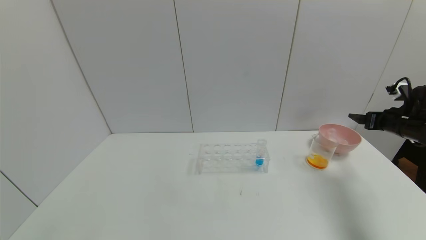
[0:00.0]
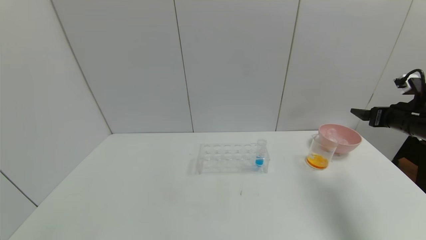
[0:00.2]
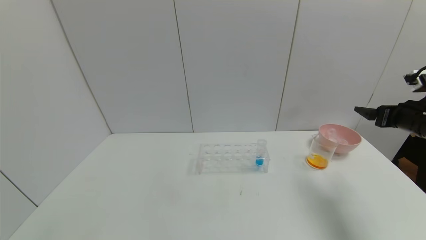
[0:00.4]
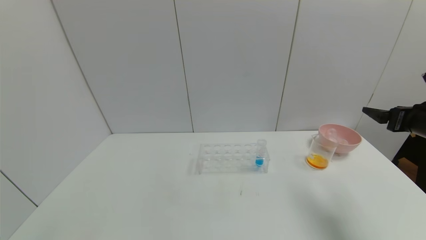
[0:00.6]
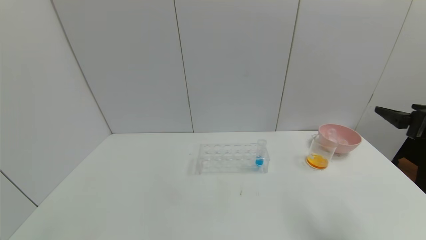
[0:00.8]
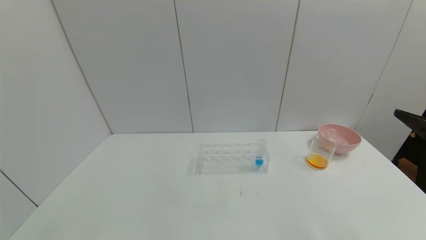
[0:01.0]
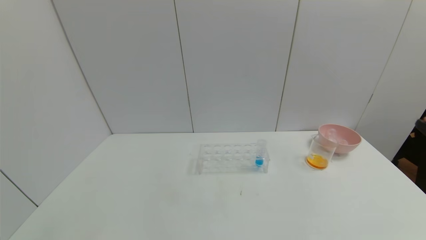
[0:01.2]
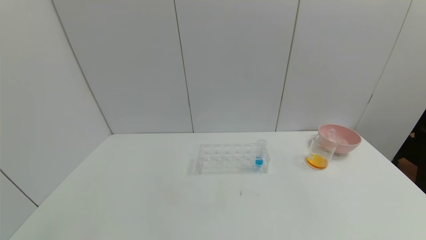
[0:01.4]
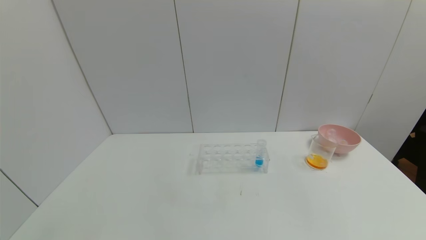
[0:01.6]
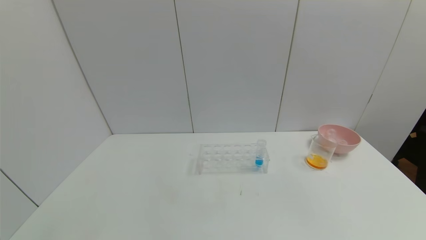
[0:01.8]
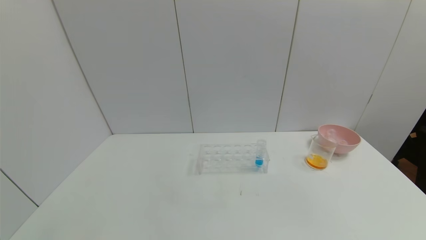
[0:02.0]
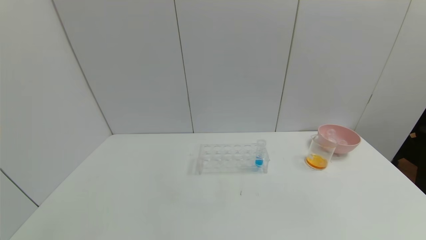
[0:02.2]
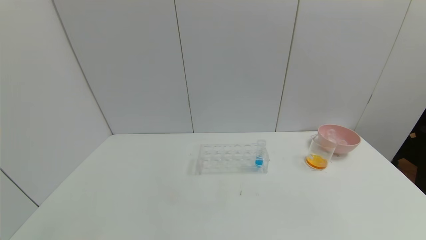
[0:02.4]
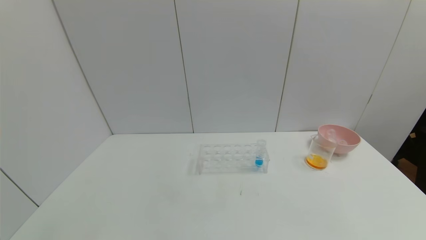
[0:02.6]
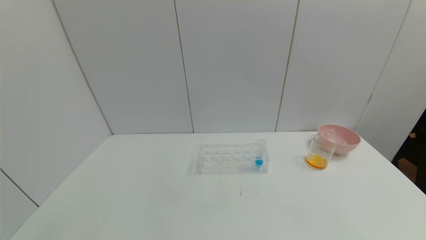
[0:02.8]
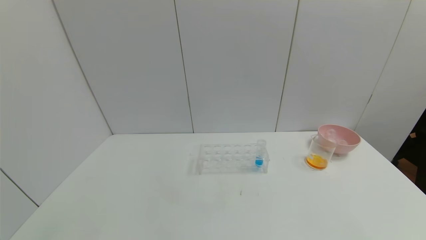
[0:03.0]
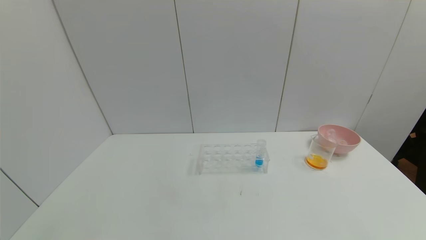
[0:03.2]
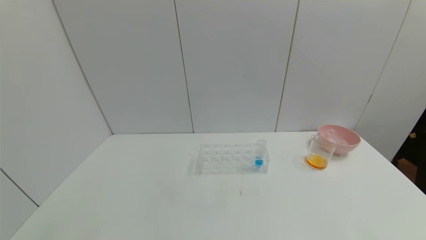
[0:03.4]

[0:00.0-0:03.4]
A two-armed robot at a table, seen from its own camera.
Task of the whole recording: pick up the test tube with yellow pigment and the test tube with red pigment by grippers and pour them into the beaker.
0:00.0 to 0:01.6: The right gripper goes some 35 cm backward.

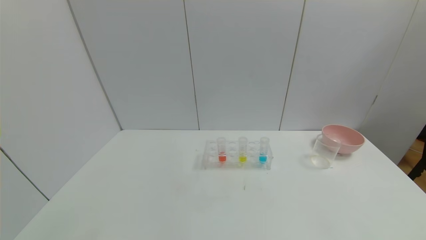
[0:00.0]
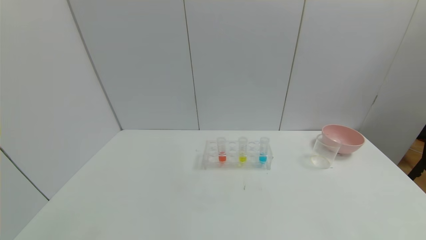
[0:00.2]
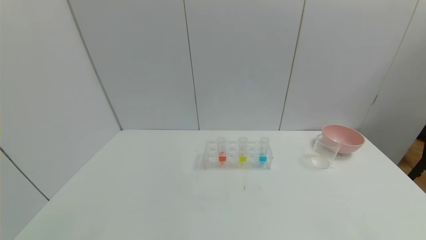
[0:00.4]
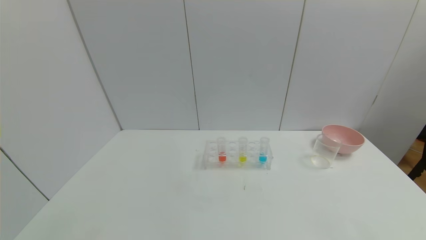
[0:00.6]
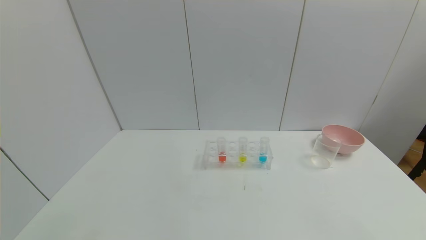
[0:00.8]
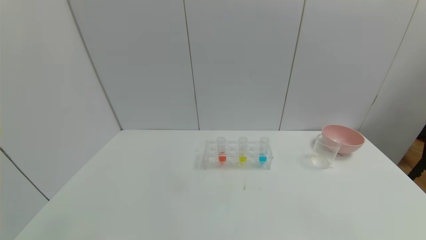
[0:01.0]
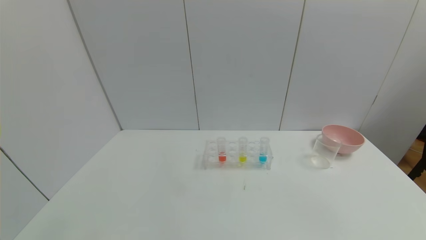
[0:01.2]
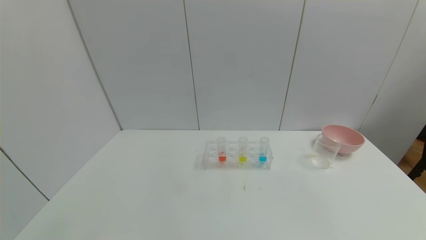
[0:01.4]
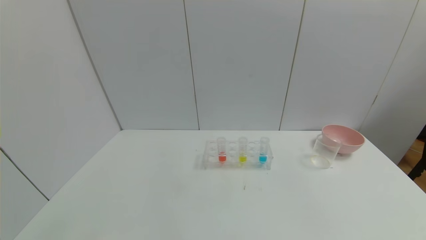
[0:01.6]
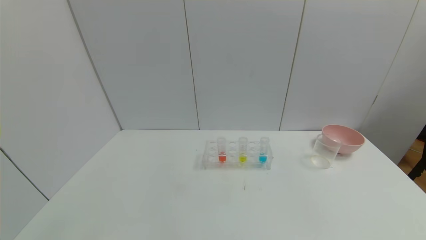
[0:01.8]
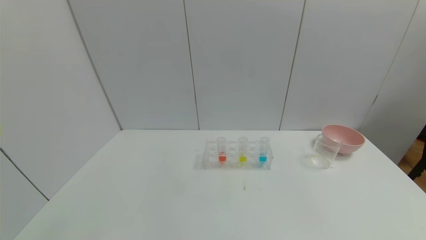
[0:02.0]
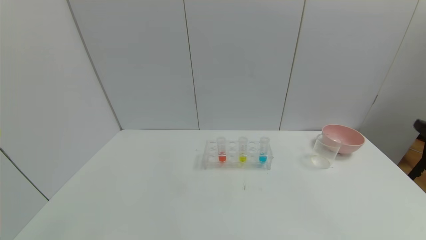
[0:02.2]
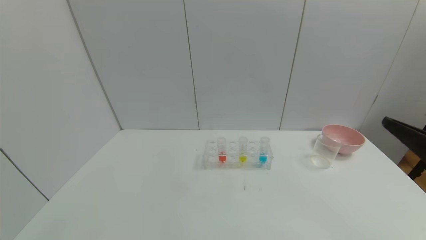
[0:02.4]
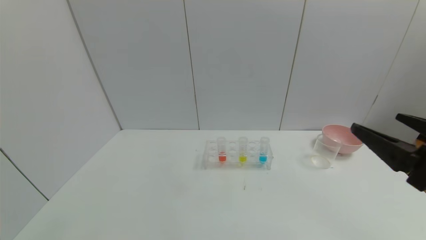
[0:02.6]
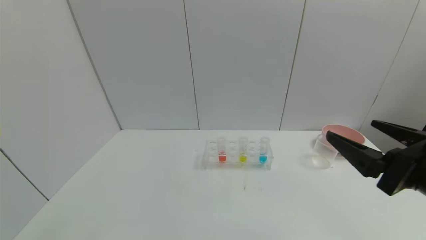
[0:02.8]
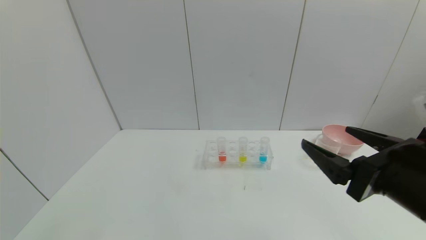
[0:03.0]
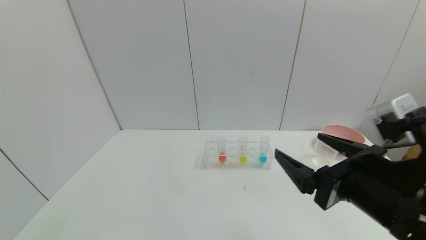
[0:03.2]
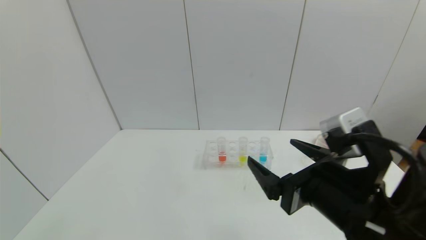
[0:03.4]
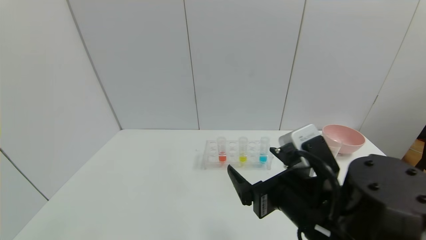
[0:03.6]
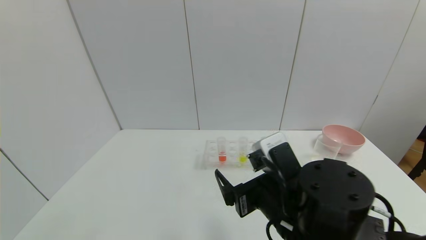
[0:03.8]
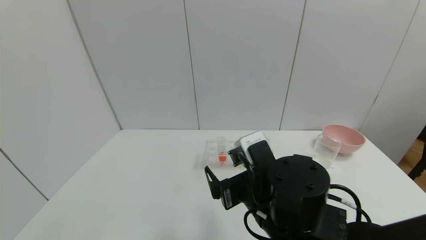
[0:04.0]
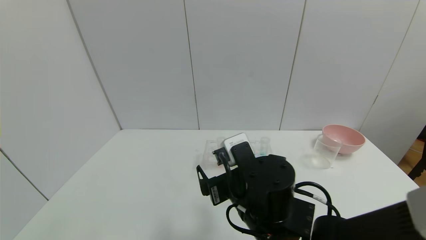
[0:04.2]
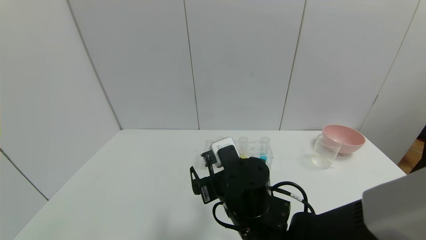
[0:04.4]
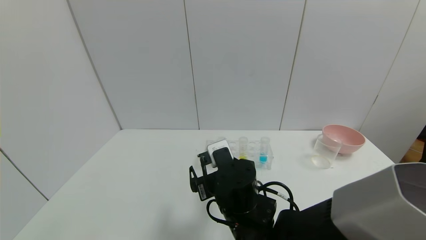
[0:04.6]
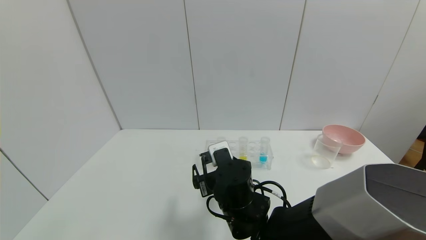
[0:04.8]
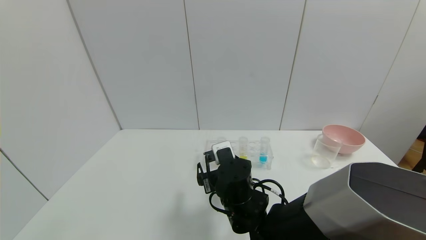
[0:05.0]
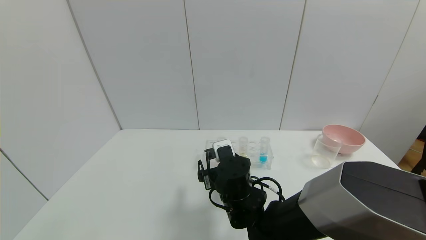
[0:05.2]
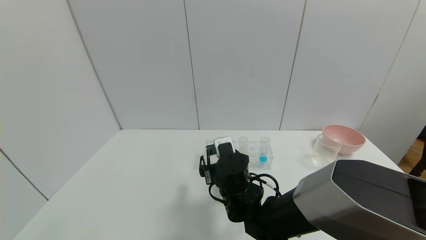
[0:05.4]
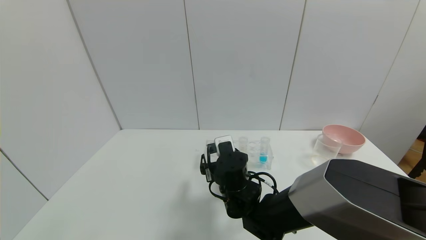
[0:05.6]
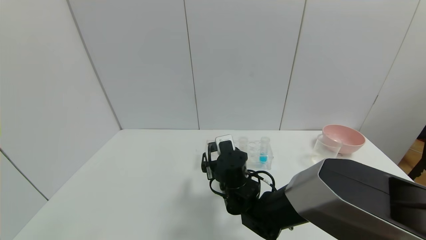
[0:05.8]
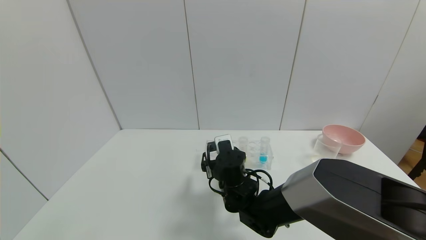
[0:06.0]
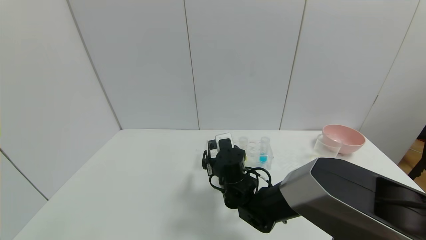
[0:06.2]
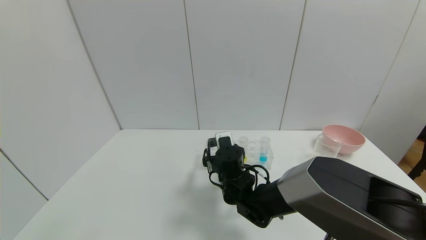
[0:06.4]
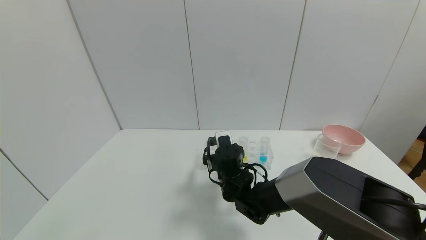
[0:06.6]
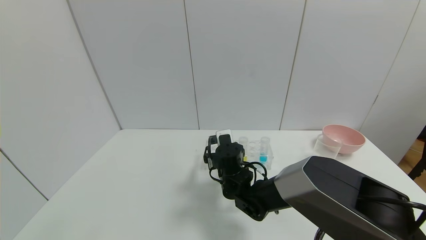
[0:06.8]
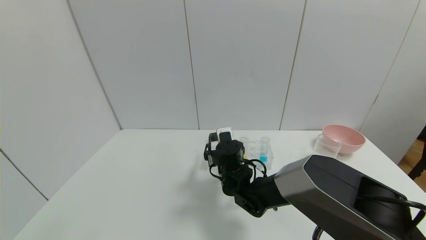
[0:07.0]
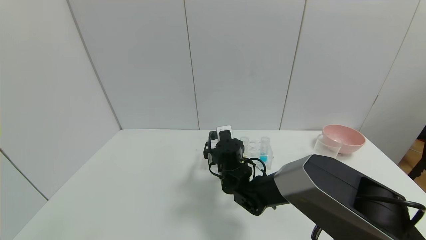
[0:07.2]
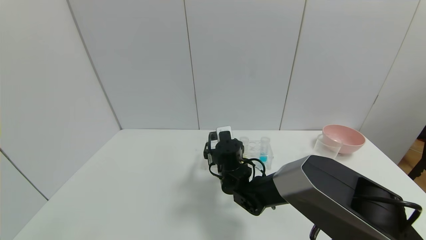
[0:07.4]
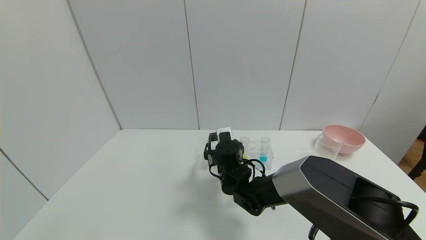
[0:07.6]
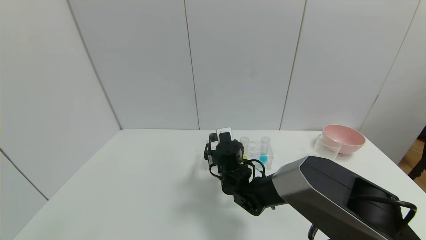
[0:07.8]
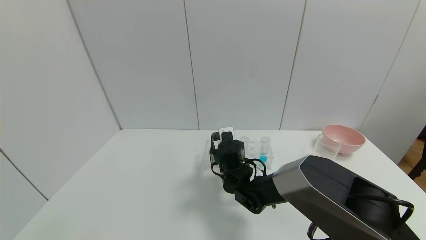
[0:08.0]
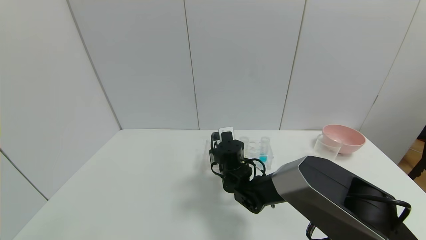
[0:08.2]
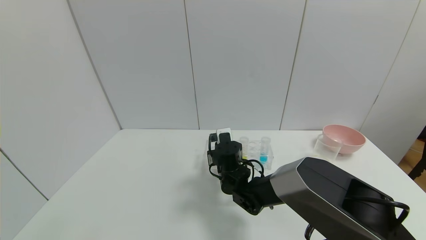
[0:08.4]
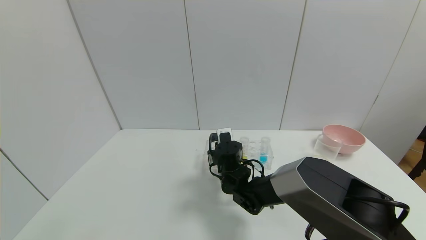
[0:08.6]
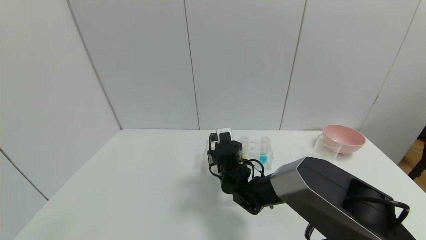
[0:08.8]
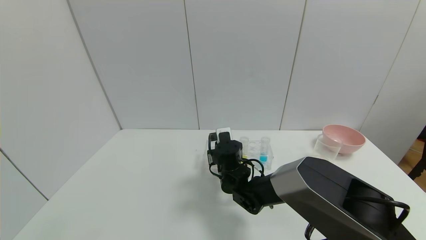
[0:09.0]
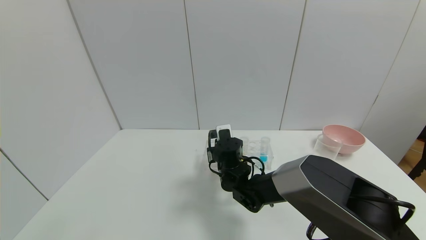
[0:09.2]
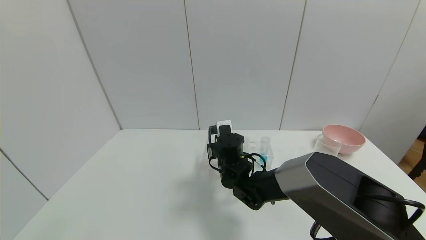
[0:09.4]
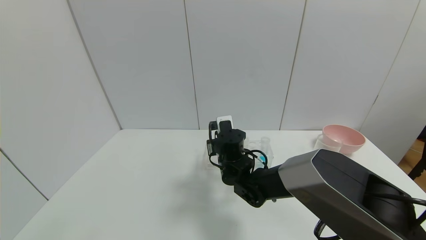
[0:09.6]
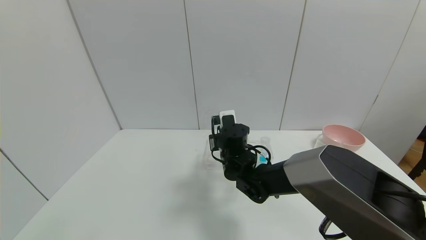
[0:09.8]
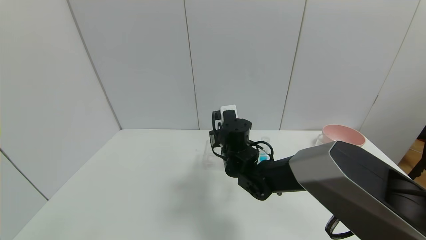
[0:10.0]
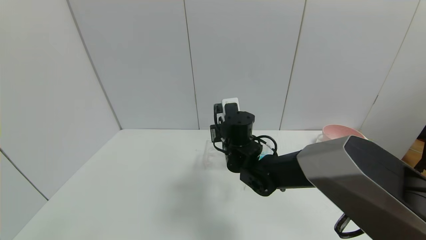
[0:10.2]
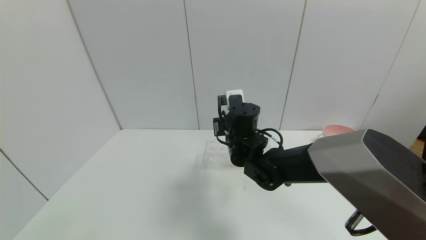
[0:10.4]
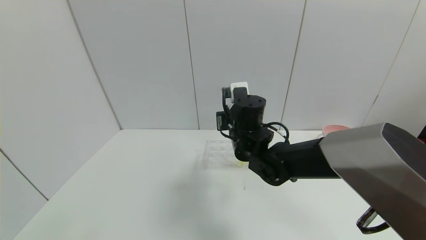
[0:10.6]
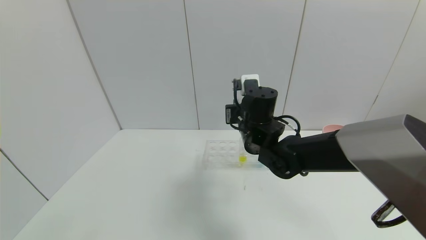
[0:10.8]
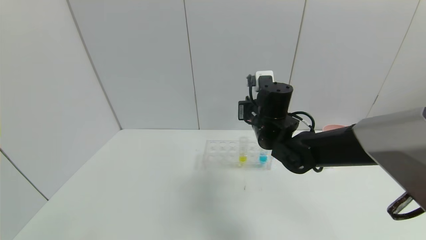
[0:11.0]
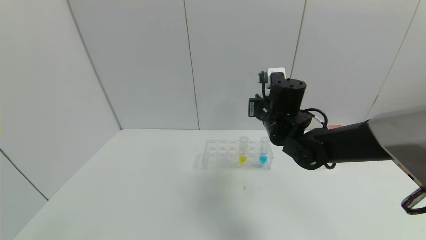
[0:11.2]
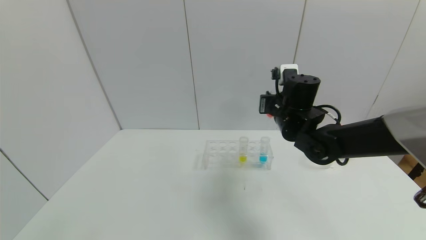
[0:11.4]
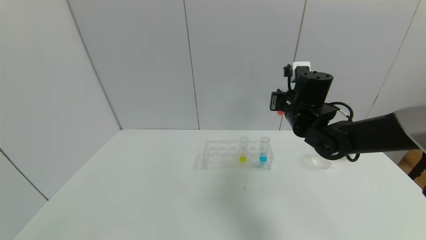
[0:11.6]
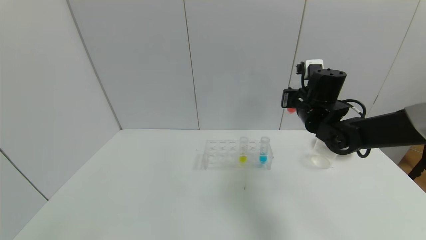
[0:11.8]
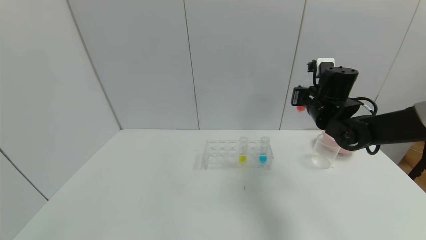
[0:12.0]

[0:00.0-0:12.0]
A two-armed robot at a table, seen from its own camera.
Task of the whole recording: pick up the test tube with yellow pigment and the test tube with red pigment by grippers and pour them into the beaker.
Step, 0:00.0 to 0:08.8: Grasp the red reagent with the right gripper.
0:01.6 to 0:03.0: The right gripper shifts approximately 20 cm to the left and forward.
0:03.0 to 0:04.4: The right gripper shifts some 25 cm to the left, downward and forward.
0:04.4 to 0:06.0: The right gripper heads forward and downward, covering roughly 10 cm.
0:06.0 to 0:07.6: The right gripper moves forward, some 5 cm.
0:07.6 to 0:09.0: The right gripper closes.
0:09.0 to 0:10.4: The right gripper moves upward, approximately 10 cm.
0:10.4 to 0:12.0: The right gripper goes about 20 cm to the right.

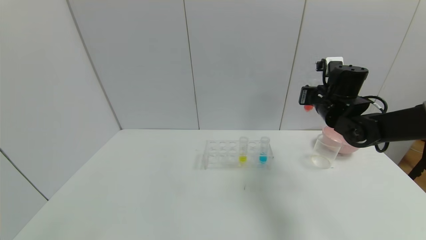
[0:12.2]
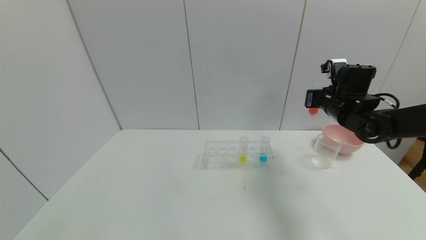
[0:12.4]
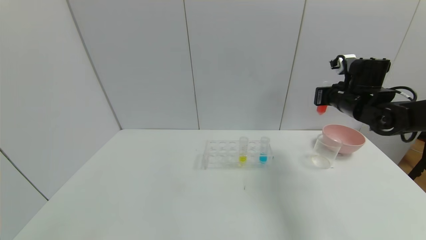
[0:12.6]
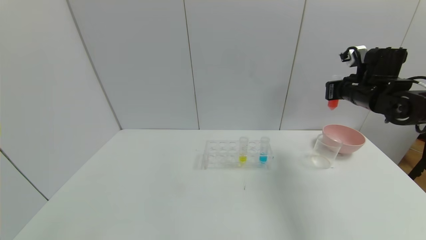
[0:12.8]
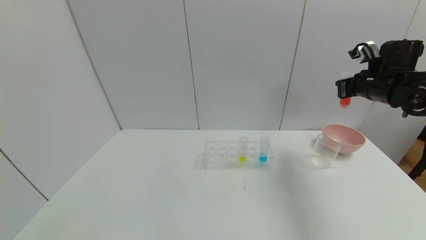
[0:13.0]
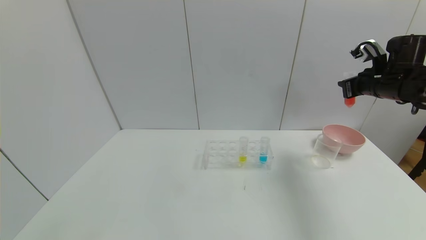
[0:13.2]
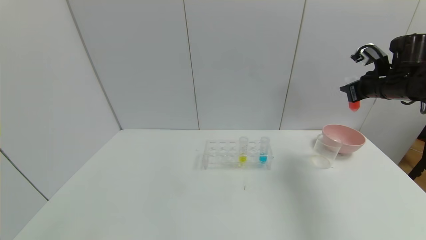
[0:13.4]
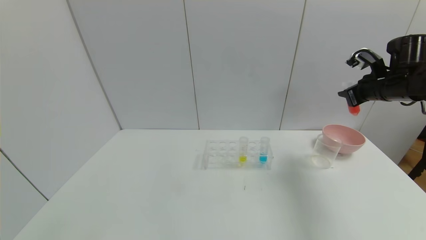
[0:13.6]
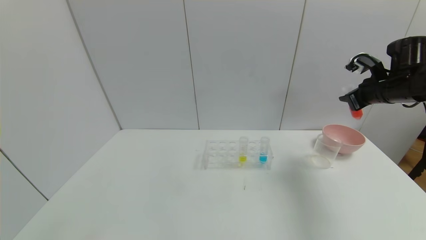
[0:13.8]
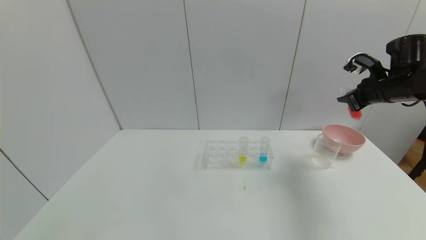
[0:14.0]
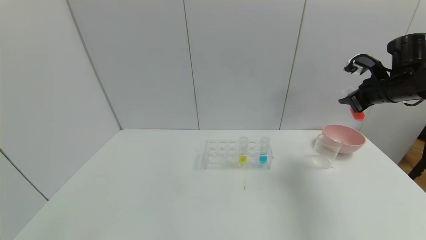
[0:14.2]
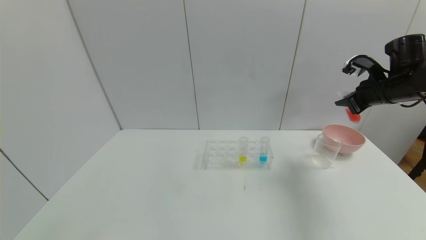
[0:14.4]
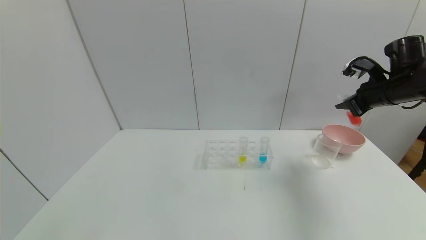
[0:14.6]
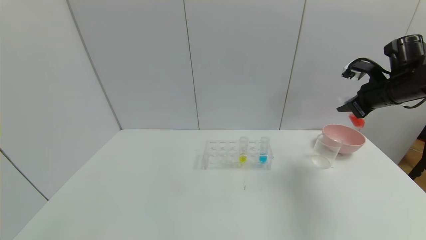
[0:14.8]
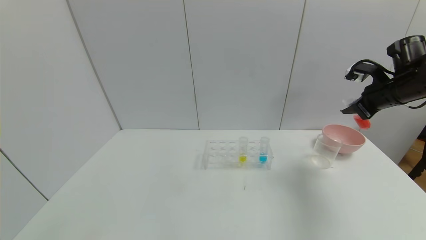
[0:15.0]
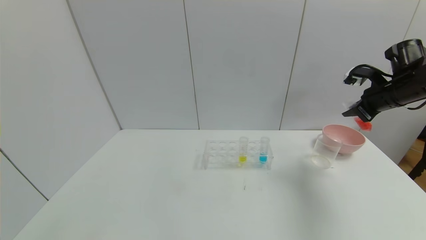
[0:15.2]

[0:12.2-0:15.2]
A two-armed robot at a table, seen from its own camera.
Task of the whole recording: pick up the test tube with yellow pigment and the test tube with red pigment by grippers and pour them into the beaker.
0:12.2 to 0:13.8: The right gripper heads to the right, covering some 10 cm.
0:13.8 to 0:15.2: The grippers stay close to where they were, moving slightly.
